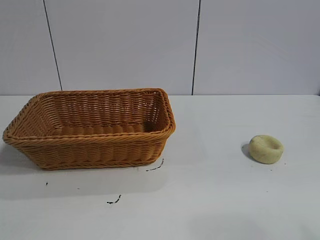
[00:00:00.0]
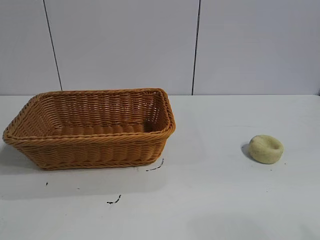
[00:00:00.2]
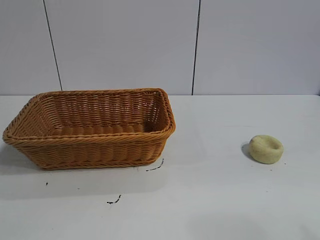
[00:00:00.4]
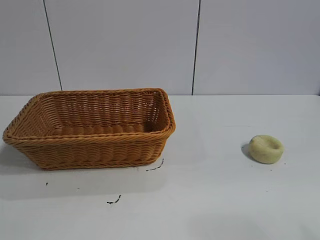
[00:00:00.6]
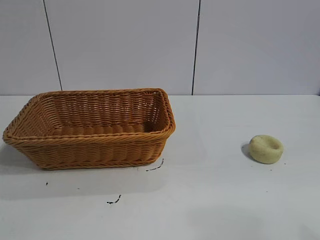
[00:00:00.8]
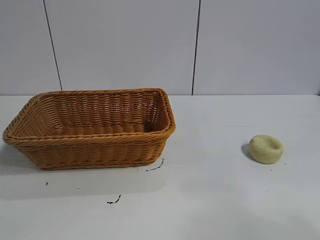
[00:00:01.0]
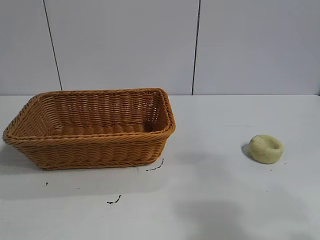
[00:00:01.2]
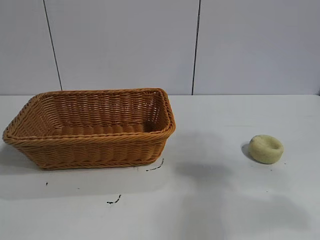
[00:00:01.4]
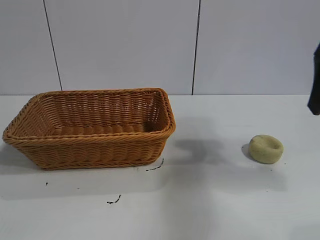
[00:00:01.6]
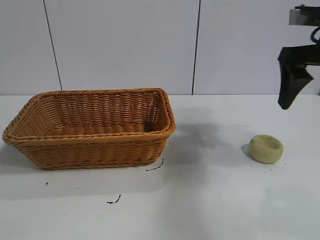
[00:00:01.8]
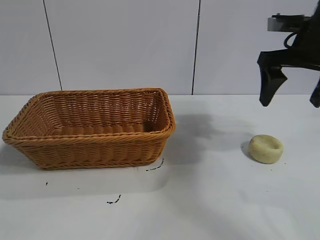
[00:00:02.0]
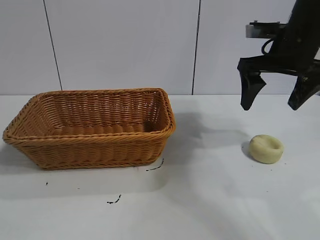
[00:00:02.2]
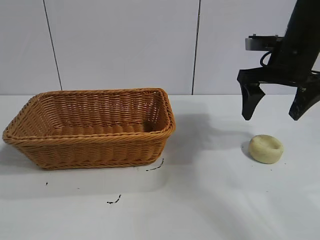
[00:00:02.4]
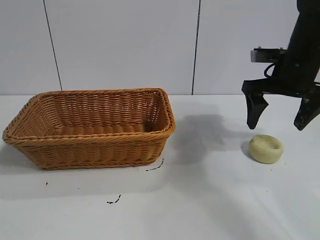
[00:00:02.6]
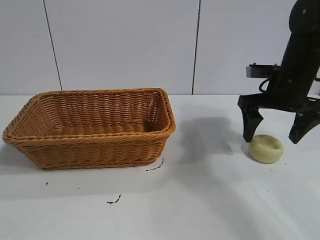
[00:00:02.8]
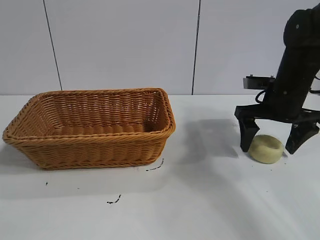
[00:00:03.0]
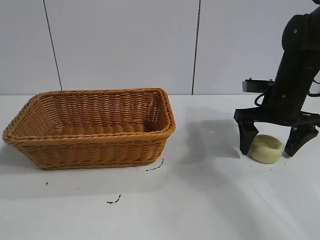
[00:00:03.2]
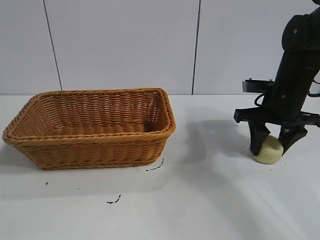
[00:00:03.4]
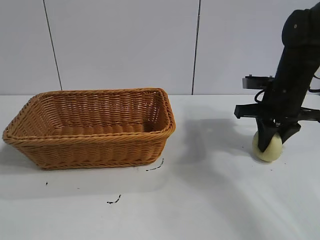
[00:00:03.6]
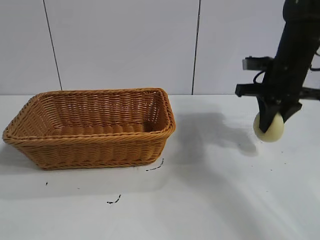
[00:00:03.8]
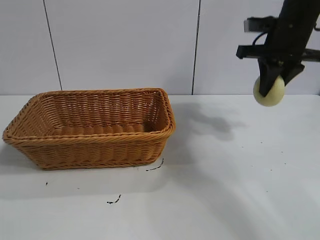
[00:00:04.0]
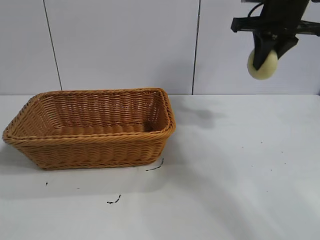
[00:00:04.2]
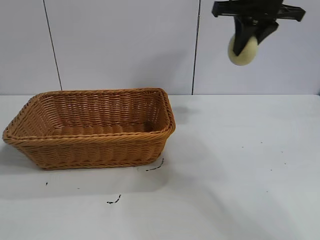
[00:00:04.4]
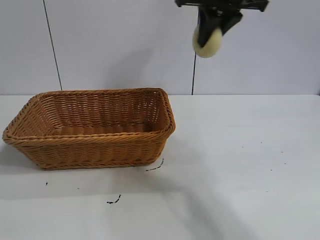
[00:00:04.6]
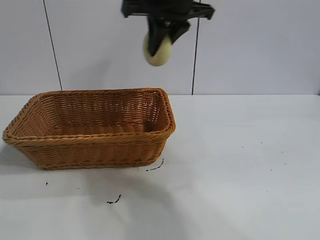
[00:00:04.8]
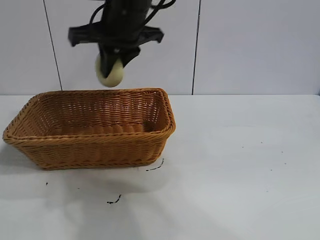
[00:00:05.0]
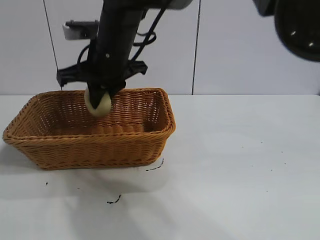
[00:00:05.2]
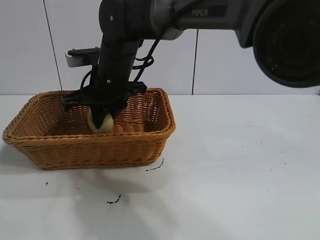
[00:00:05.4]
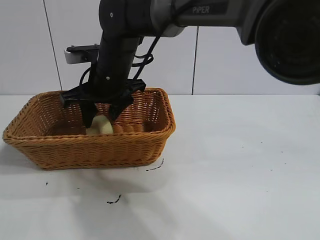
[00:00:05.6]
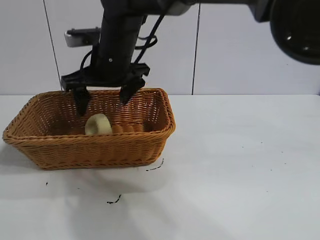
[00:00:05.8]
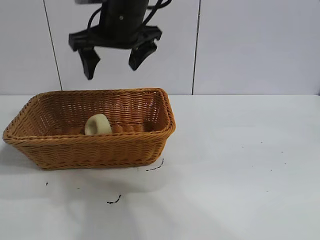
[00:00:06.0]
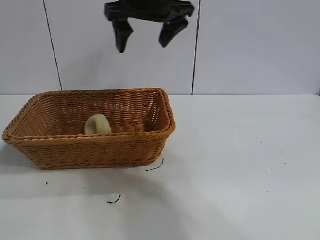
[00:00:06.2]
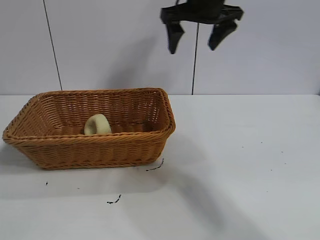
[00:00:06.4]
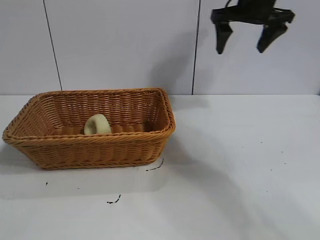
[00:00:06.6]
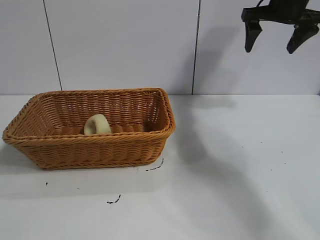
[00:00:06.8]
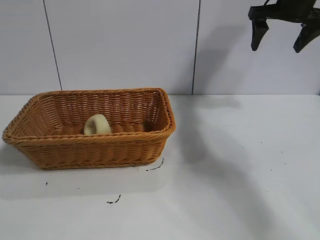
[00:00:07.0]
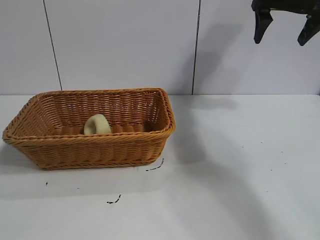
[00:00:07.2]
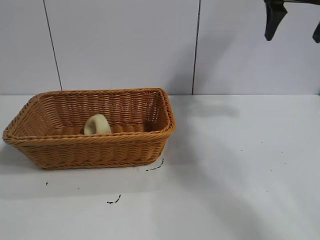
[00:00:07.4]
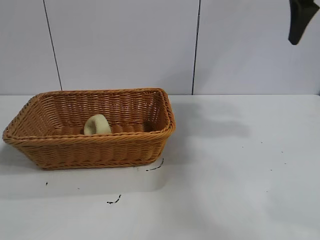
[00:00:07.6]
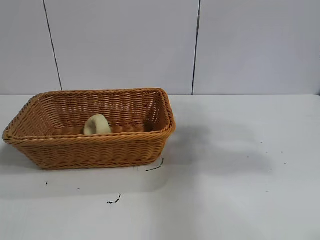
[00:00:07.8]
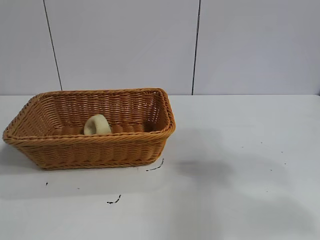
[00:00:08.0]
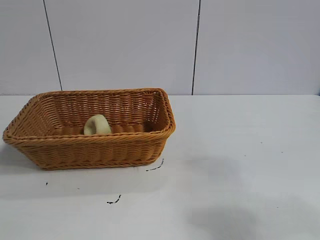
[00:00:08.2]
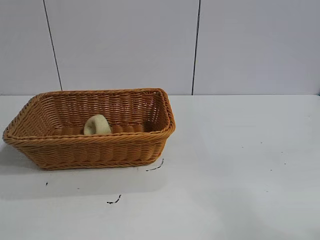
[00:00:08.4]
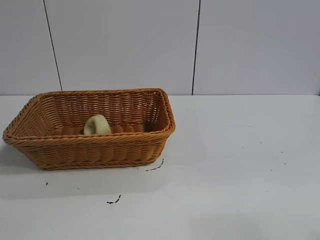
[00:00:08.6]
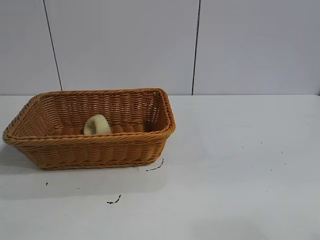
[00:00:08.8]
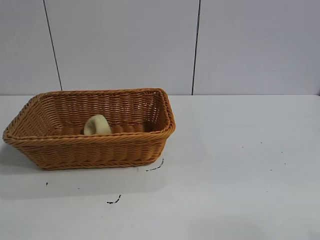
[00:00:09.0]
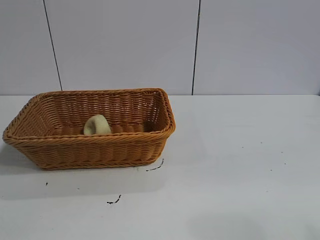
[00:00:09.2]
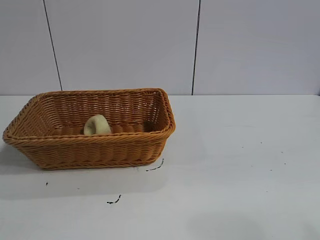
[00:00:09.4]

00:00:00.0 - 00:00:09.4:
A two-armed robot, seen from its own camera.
Task of the whole recording: pick up the egg yolk pastry and put it into the basket.
Step, 00:00:00.8 - 00:00:03.4: Grasp egg yolk pastry with right gripper.
Step, 00:00:03.6 - 00:00:05.6: Place the egg yolk pastry in the basket with right gripper.
